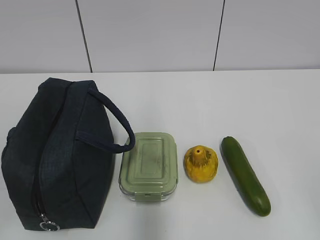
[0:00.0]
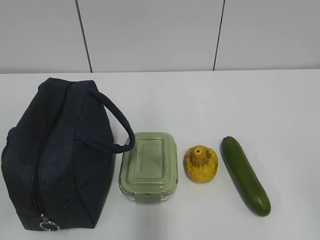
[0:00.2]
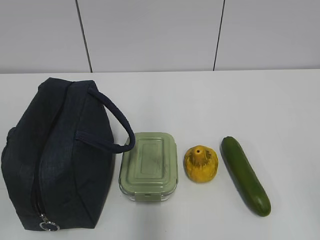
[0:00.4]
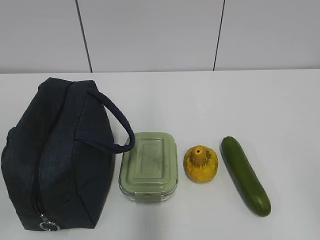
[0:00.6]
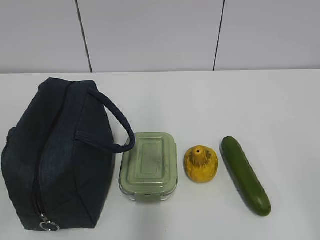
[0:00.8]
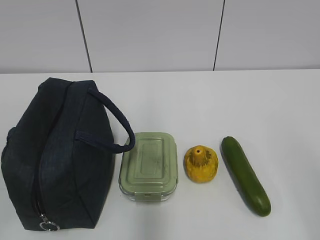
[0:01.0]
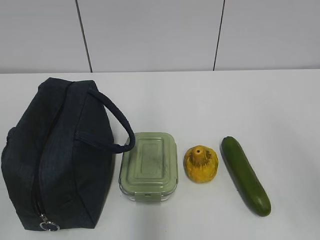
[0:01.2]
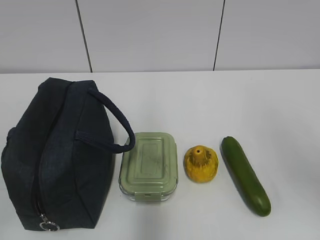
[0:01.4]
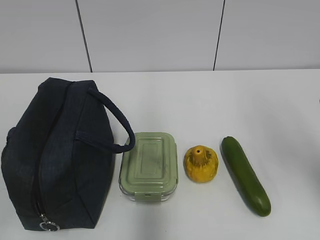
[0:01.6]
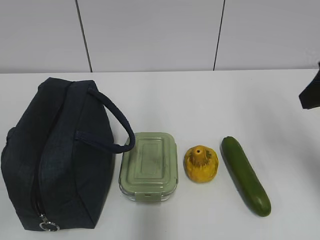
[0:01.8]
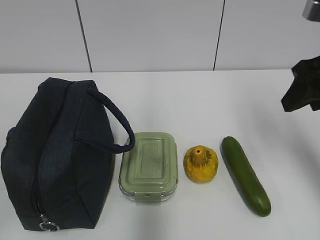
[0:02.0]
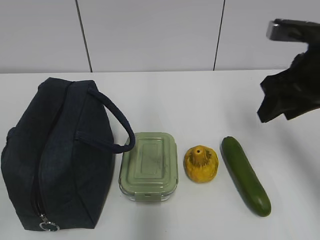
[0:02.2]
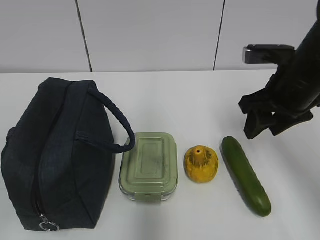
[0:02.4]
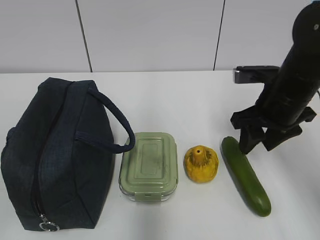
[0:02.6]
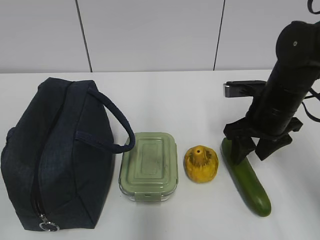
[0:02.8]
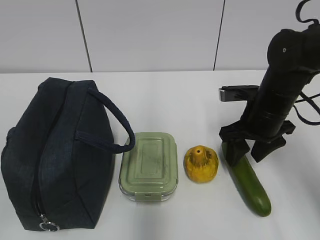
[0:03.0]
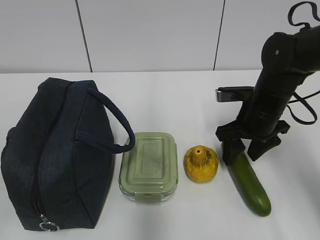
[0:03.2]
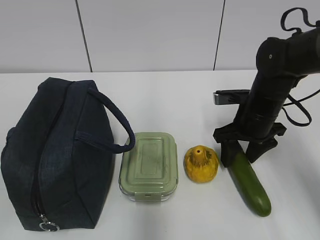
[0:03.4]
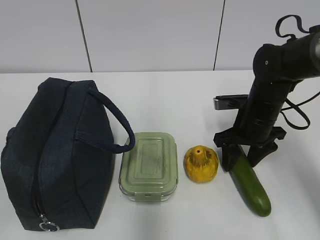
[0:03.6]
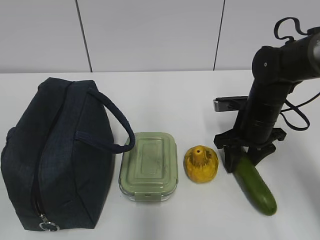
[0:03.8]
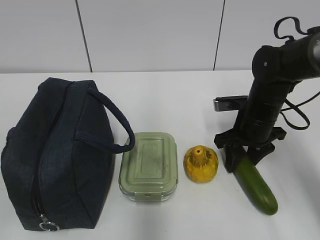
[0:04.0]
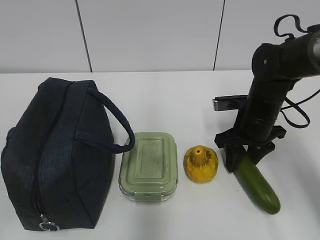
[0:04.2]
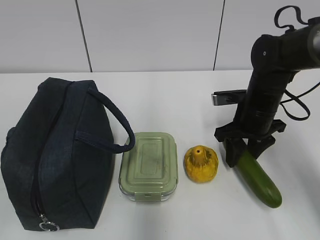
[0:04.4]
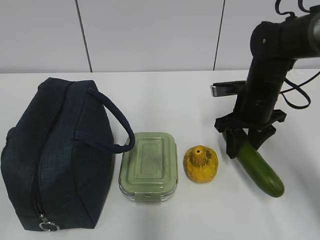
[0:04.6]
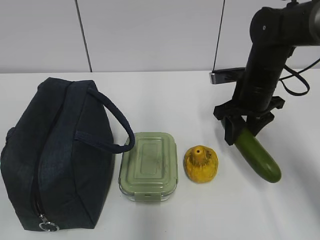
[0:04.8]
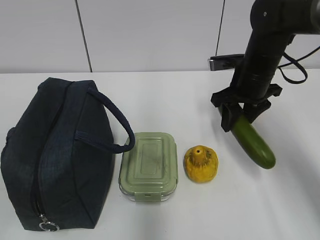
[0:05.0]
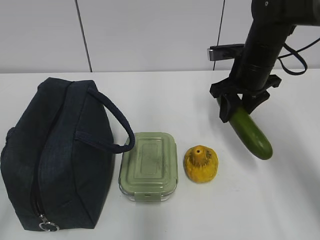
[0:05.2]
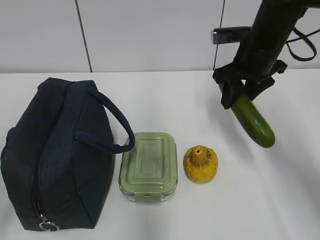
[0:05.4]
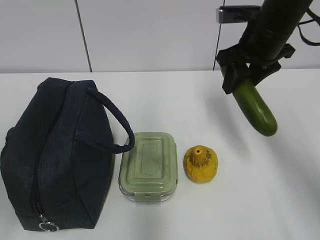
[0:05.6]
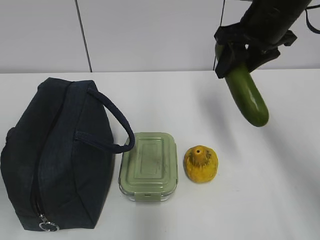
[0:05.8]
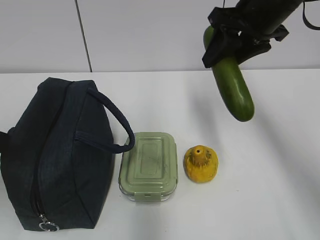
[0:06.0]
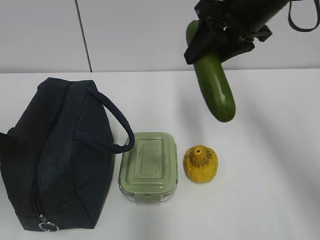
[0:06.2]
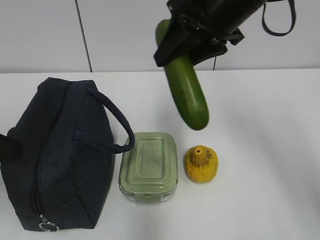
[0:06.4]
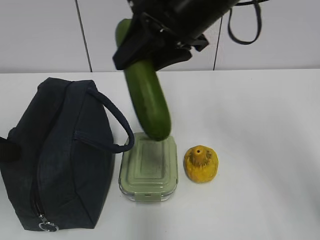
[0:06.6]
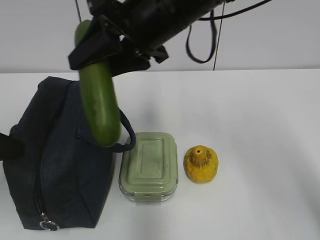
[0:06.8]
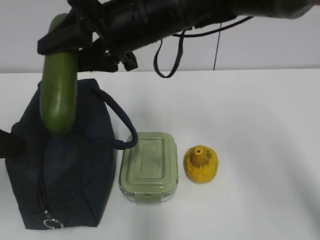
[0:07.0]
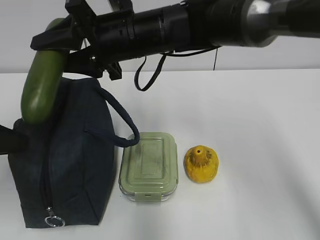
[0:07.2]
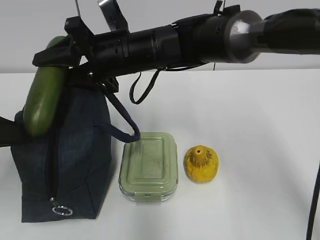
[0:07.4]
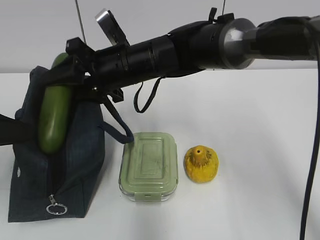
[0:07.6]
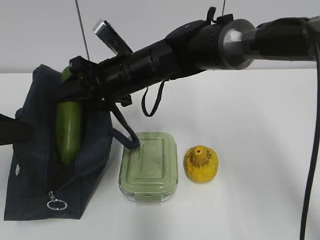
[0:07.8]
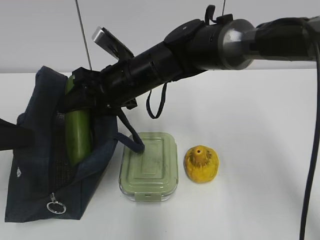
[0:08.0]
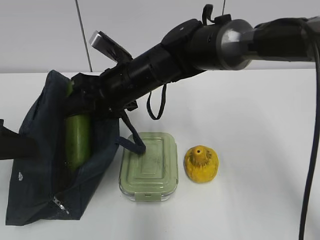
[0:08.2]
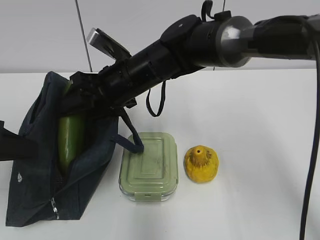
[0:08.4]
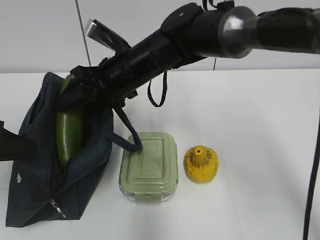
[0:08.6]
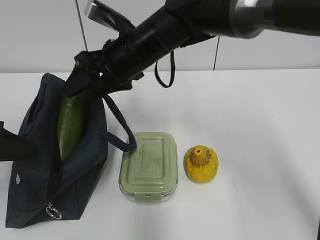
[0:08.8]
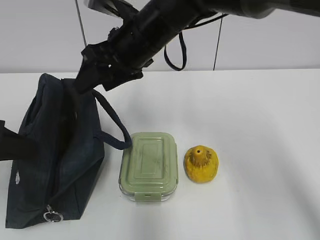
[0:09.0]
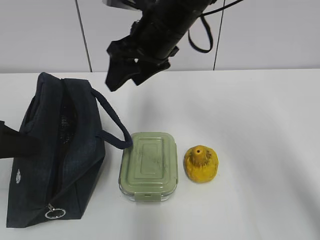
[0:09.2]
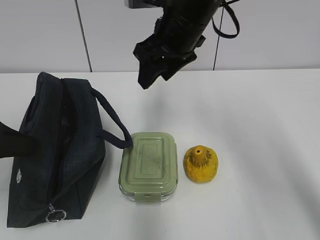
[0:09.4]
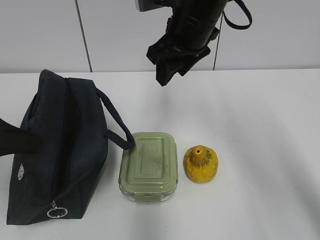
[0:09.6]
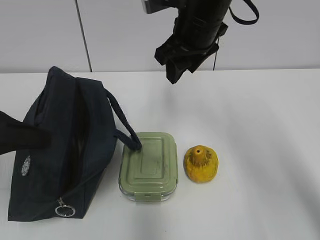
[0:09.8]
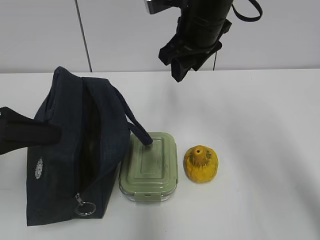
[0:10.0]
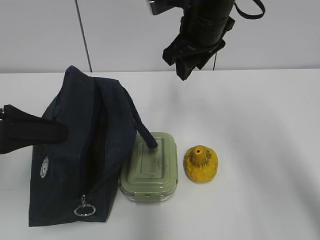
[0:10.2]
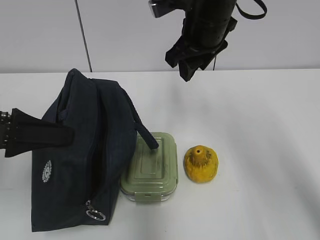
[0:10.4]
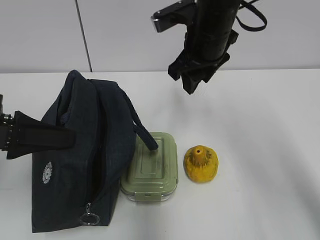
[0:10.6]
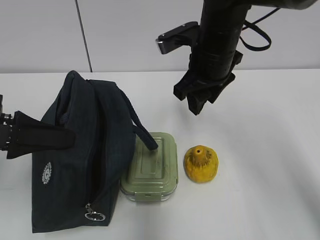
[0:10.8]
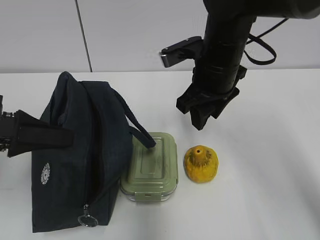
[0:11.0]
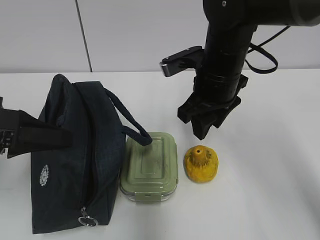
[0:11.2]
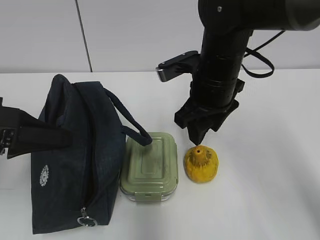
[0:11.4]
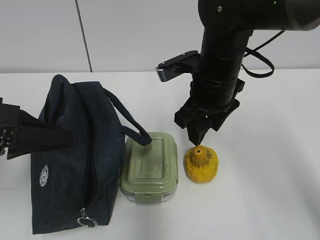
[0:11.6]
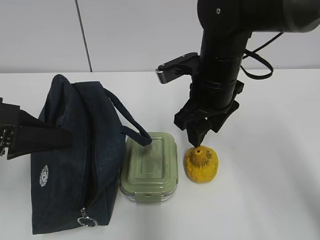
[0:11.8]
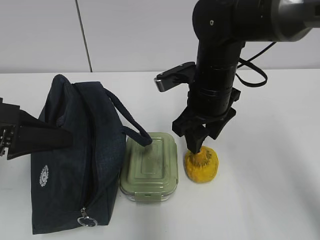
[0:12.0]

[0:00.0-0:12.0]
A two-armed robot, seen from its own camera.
0:01.6 to 0:03.0: The right gripper travels downward and forward by approximately 25 cm.
0:03.0 to 0:04.4: The grippers move only a little.
0:04.4 to 0:06.0: The right gripper is displaced upward by some 20 cm. Meanwhile the left gripper heads forward, covering roughly 15 cm.
0:06.0 to 0:07.6: The left gripper closes its fingers; the right gripper heads to the left and downward, covering some 20 cm.
0:07.6 to 0:09.0: The right gripper changes place by approximately 5 cm.
0:09.0 to 0:10.4: The right gripper is displaced to the right by approximately 10 cm.
0:10.4 to 0:12.0: The right gripper shifts some 10 cm downward.

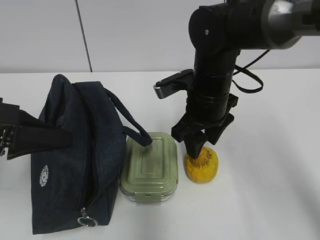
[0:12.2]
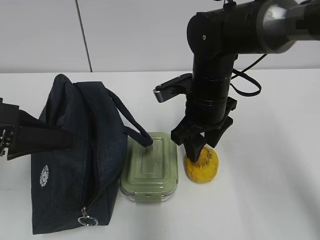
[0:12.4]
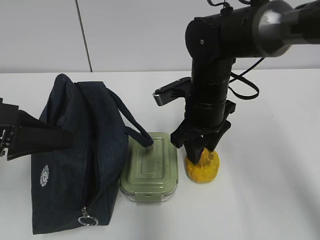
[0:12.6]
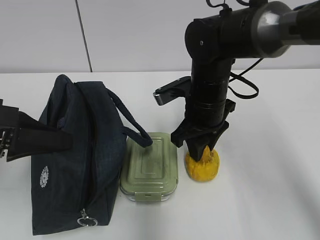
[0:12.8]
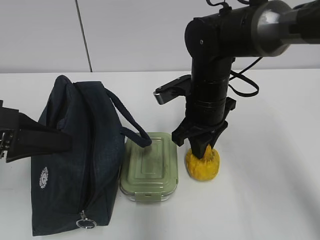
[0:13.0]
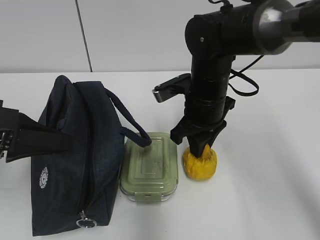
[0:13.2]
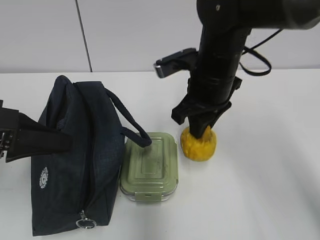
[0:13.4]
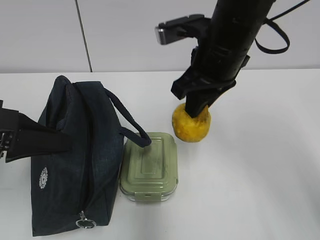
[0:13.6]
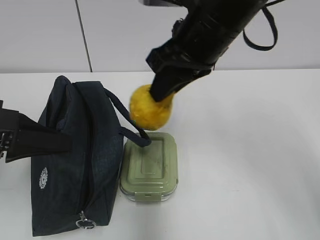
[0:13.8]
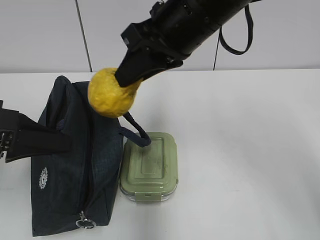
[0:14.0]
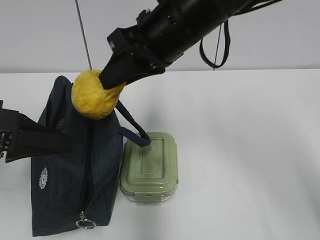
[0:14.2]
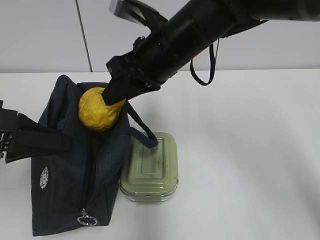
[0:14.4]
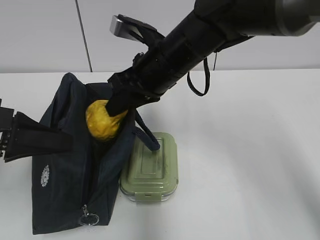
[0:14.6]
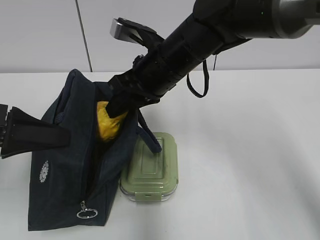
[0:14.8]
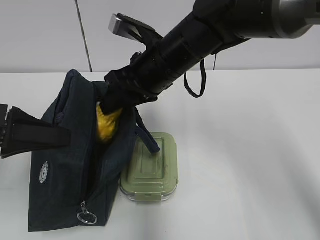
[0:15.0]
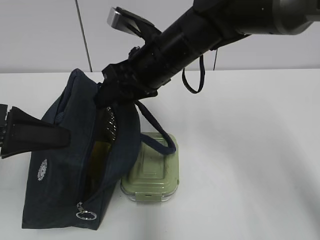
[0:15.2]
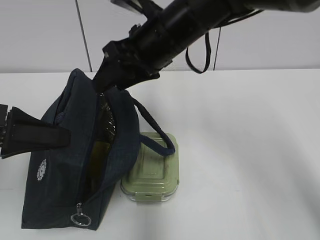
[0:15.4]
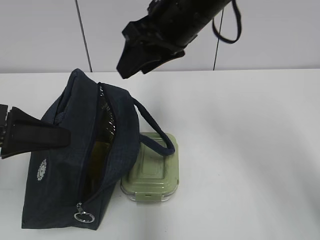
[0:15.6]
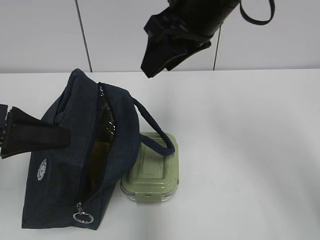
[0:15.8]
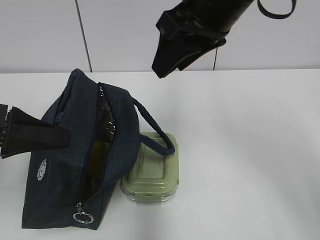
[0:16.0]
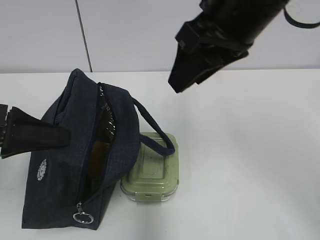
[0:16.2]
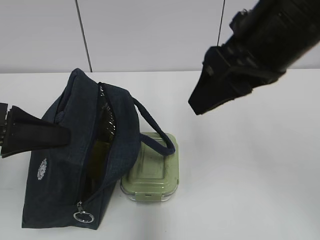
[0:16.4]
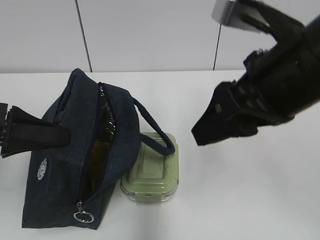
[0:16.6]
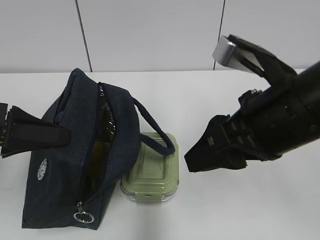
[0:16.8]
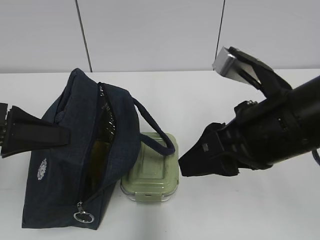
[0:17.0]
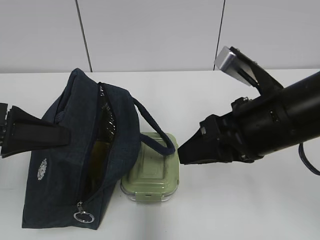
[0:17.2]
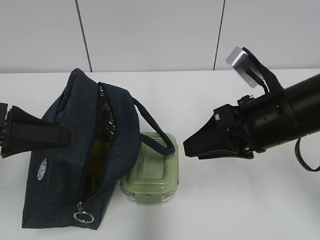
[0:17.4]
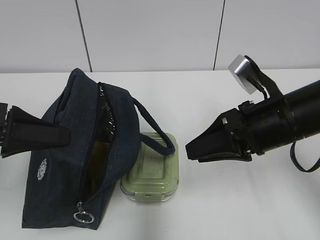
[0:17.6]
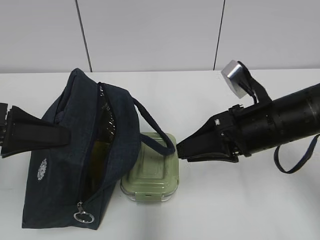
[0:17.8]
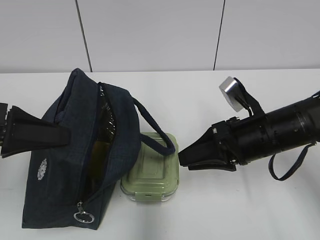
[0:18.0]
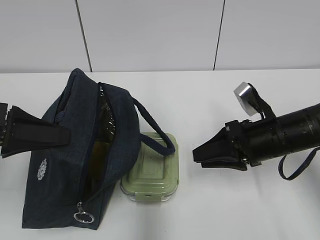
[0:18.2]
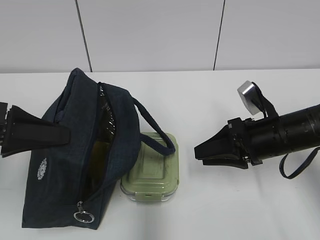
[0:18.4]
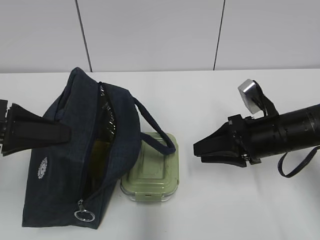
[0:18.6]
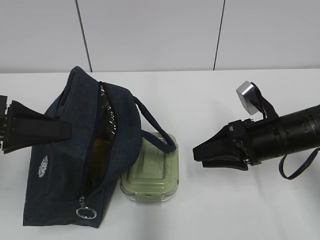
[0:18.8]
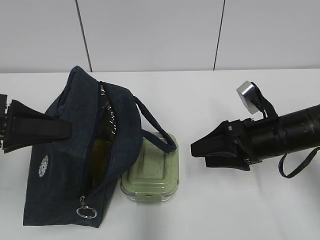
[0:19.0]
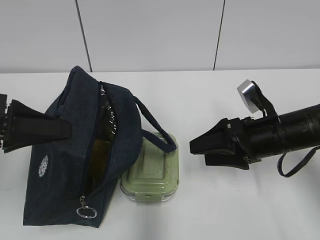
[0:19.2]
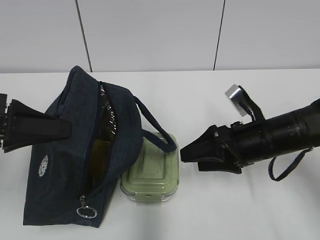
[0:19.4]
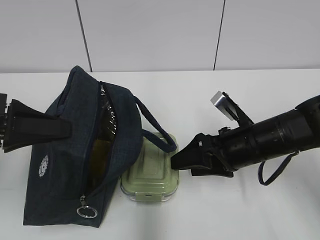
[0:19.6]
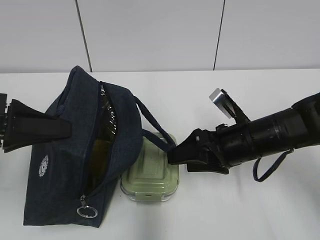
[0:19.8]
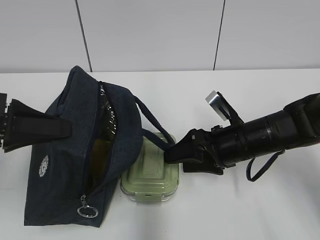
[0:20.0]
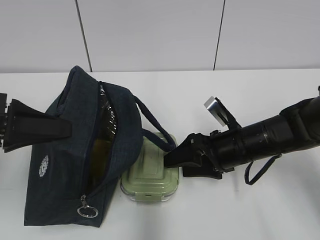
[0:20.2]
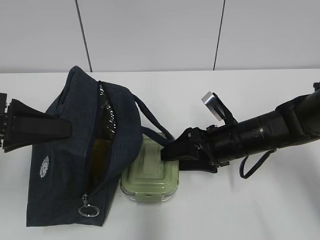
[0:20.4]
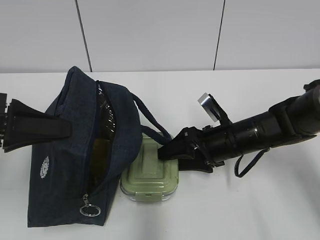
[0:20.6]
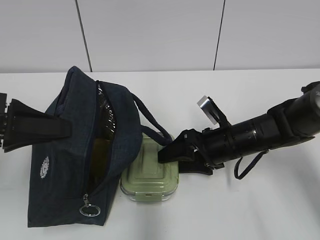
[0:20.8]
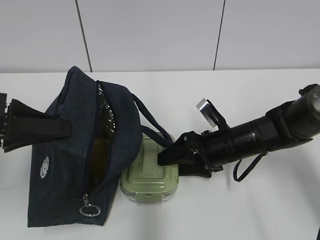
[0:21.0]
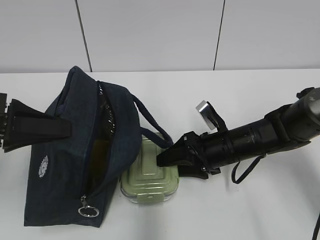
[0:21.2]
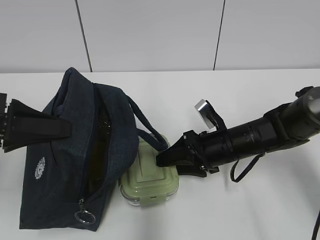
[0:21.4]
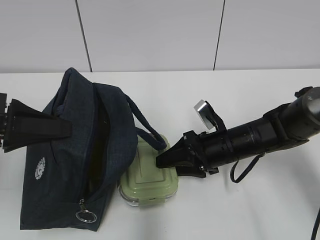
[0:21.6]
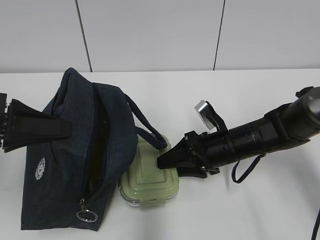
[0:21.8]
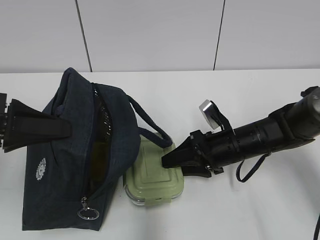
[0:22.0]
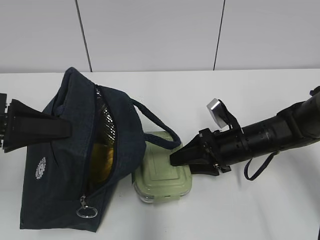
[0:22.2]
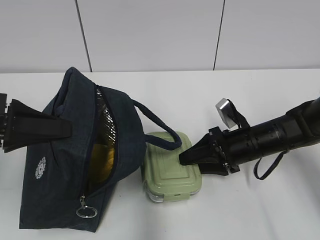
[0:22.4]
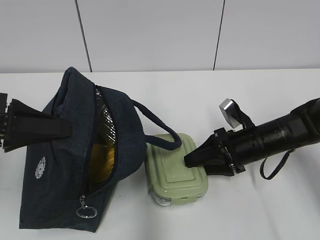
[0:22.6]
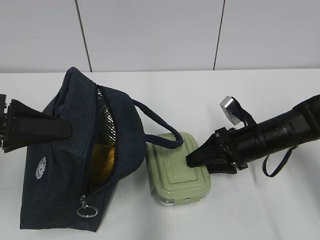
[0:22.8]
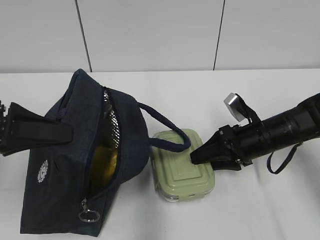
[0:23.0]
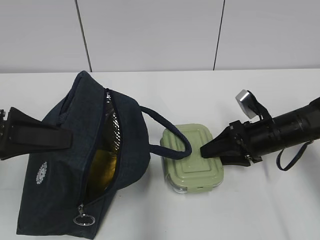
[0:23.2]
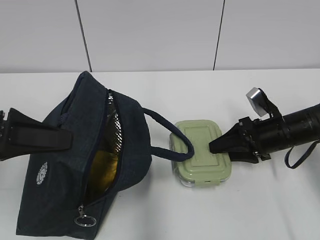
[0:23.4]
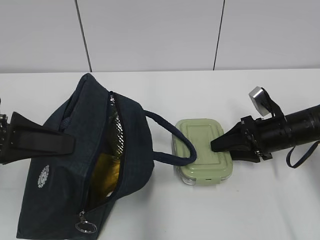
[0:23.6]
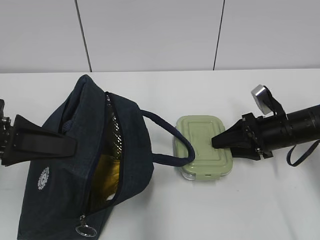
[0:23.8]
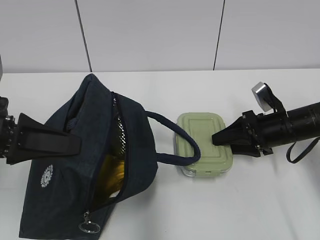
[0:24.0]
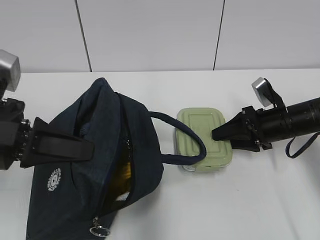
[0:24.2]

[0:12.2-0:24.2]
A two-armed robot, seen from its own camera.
0:12.2 to 0:13.8: The right gripper goes roughly 15 cm upward, and closes up.
0:13.8 to 0:15.2: The right gripper goes some 5 cm downward, and opens its fingers.
0:15.2 to 0:16.6: The right gripper shifts some 20 cm backward and to the right.
0:16.6 to 0:18.2: The right gripper moves downward and forward, approximately 20 cm.
0:18.2 to 0:19.8: The right gripper opens its fingers.
0:19.8 to 0:21.2: The right gripper ends up about 5 cm from where it was.
0:21.2 to 0:22.6: The right gripper is displaced to the right by some 5 cm.
0:22.6 to 0:24.2: The right gripper heads to the right, covering about 5 cm.
